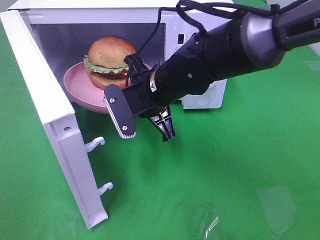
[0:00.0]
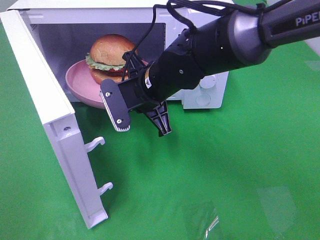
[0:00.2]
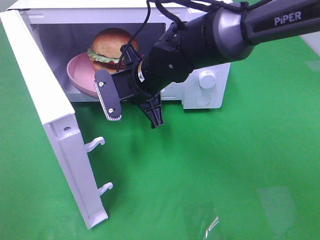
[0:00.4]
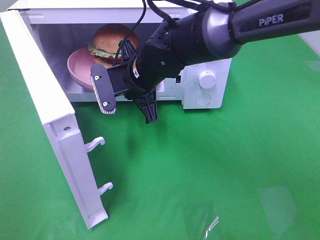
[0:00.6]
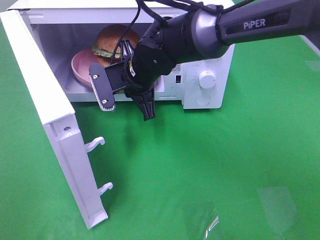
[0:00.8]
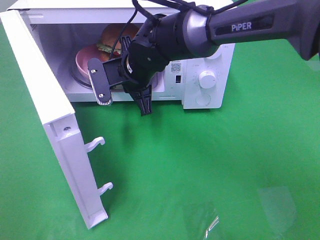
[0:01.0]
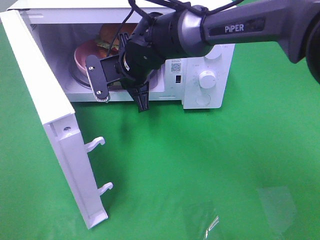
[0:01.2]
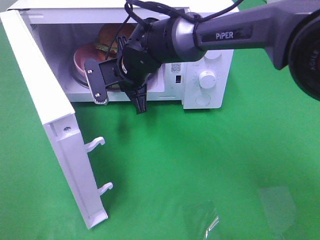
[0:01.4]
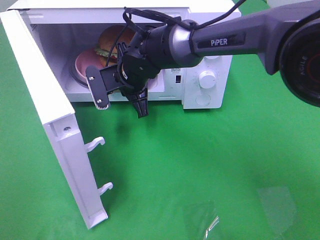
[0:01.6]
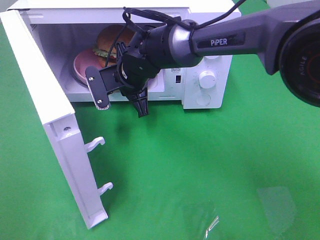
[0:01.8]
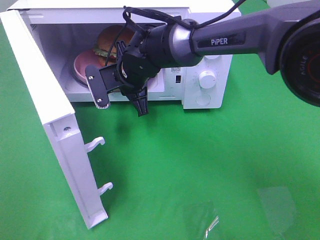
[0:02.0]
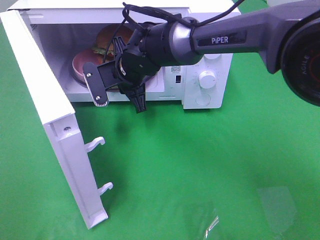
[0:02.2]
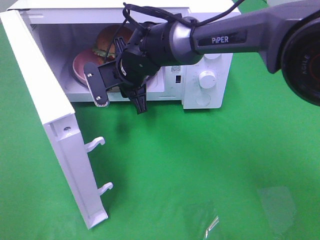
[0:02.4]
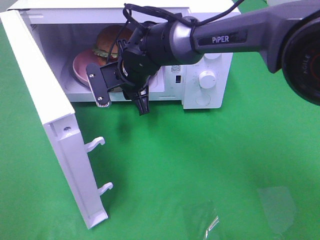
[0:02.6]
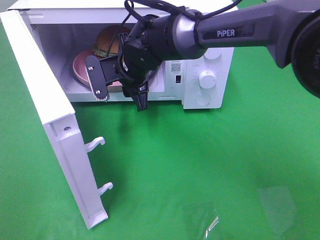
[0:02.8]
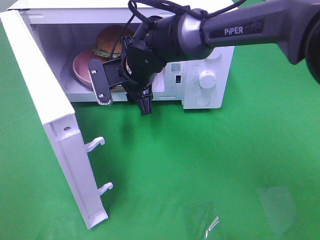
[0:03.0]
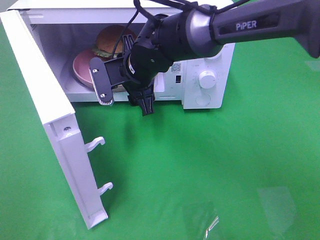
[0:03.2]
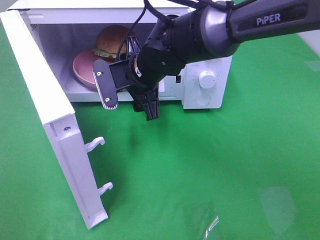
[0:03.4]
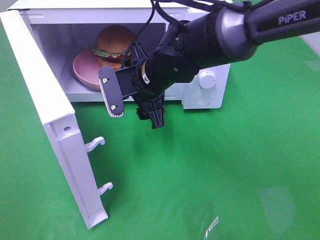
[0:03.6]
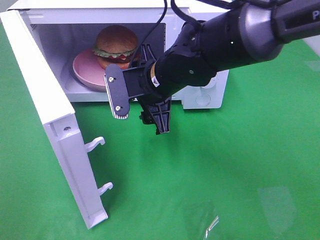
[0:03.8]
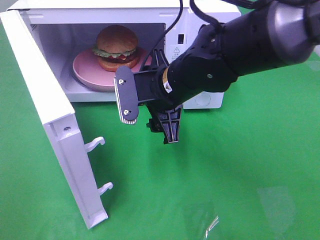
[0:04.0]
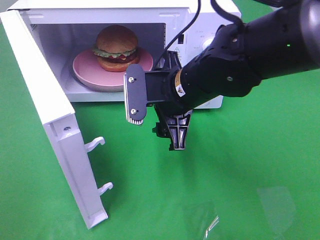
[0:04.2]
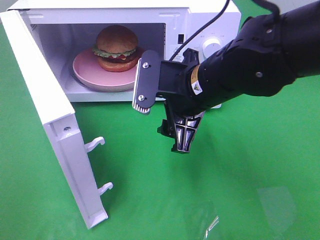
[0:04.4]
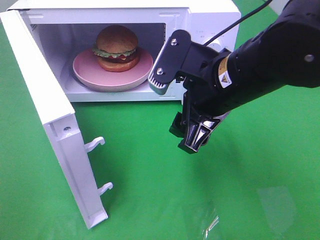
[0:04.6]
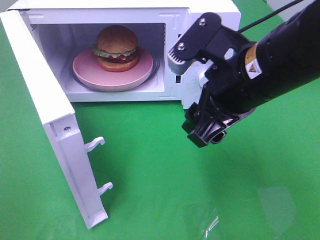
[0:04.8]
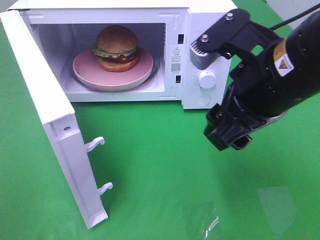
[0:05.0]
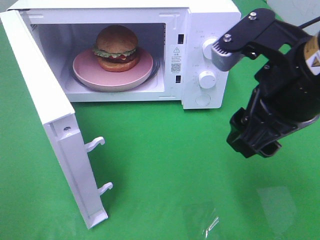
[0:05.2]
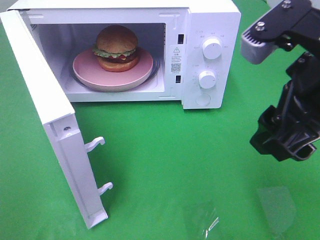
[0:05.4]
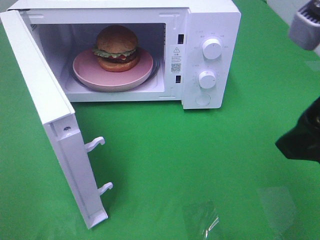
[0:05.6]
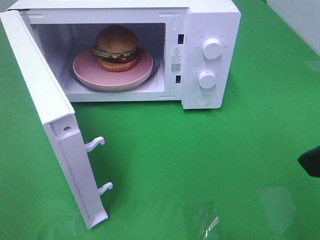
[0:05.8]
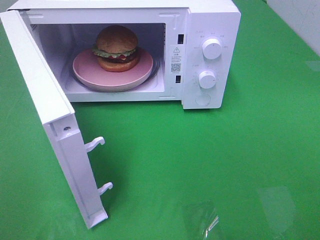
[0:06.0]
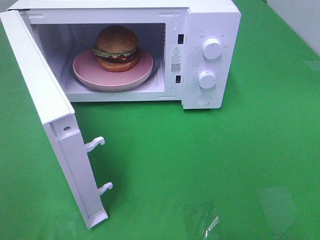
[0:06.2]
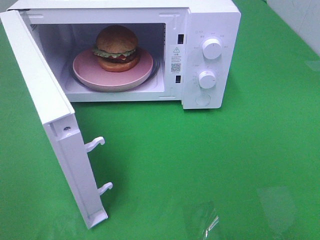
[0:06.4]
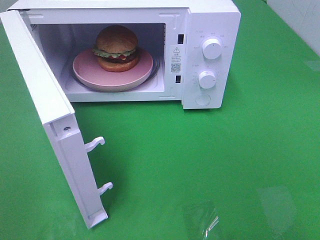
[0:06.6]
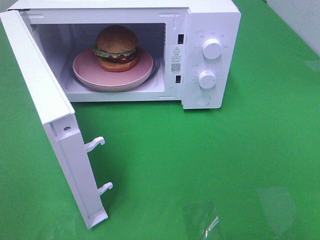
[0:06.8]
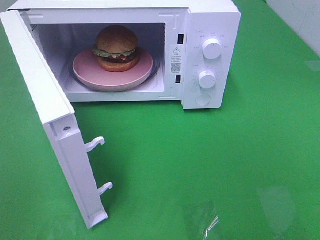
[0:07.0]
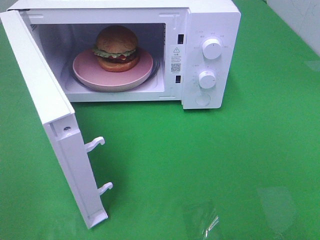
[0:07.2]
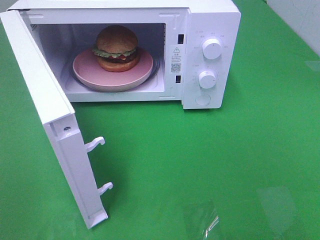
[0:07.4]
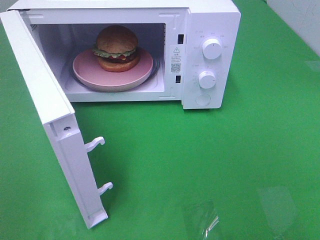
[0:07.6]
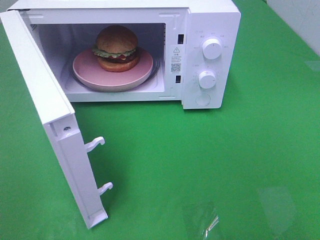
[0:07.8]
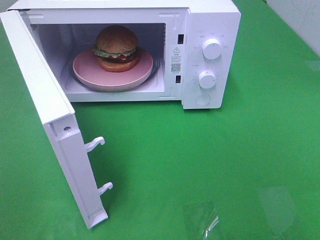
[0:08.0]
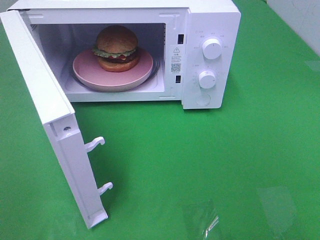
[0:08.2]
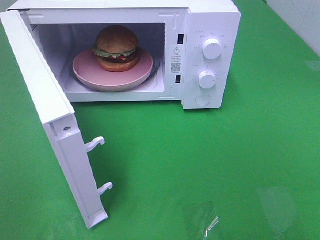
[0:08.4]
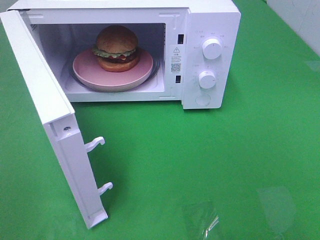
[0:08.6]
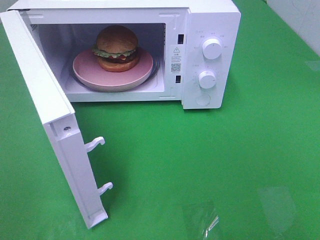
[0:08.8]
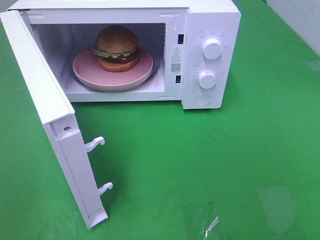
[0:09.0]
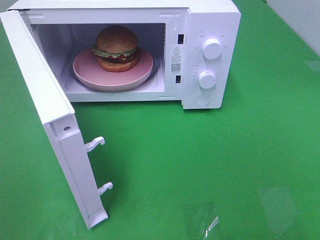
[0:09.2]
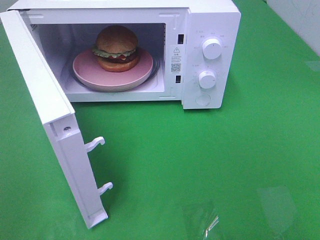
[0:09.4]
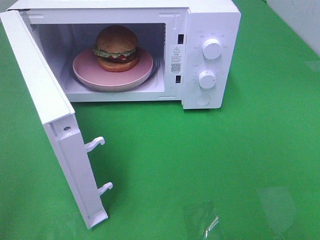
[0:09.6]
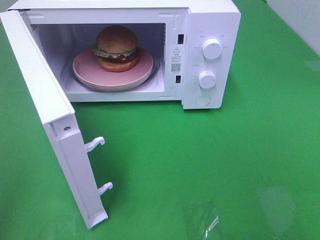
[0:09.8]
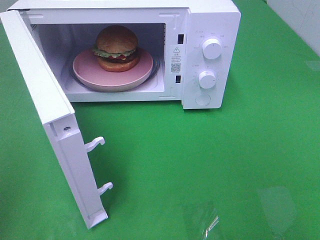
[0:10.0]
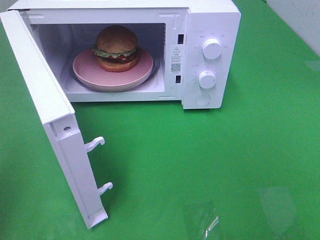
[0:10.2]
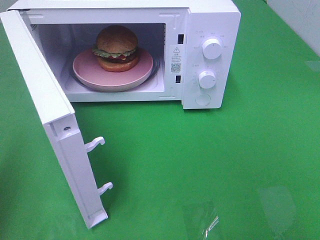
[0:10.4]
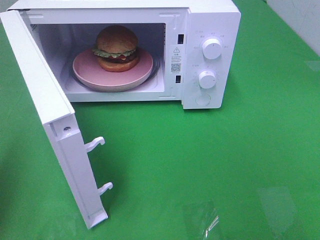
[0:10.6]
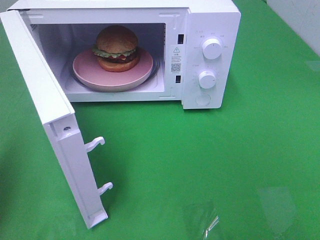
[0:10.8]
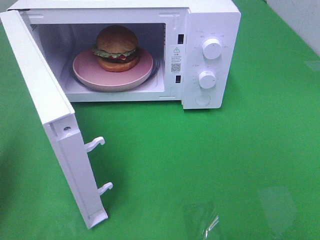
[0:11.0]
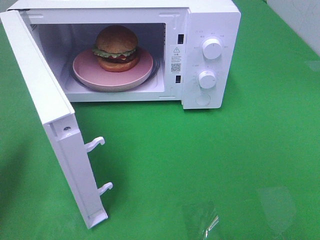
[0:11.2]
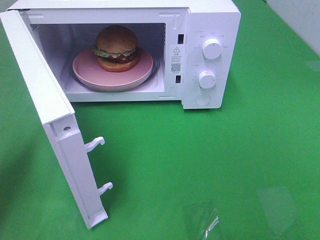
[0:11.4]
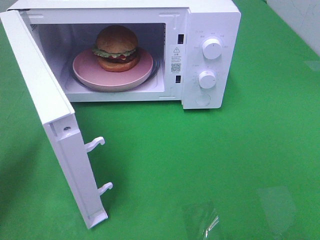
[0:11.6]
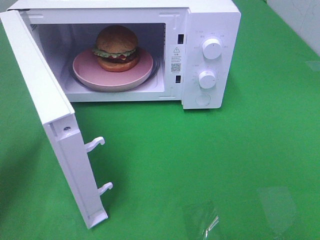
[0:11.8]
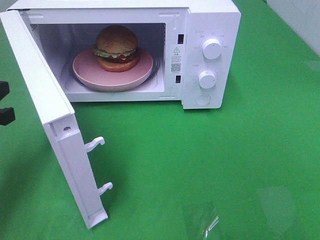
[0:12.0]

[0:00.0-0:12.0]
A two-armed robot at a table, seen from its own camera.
Task of the whole recording: Heat the burger.
Step, 0:00.0 to 0:02.2: Right hand: place the plate in the microwave.
0:00.0 to 0:01.6: The right gripper heads forward, covering roughly 10 cm.
0:01.6 to 0:03.0: The right gripper opens its fingers.
0:03.0 to 0:04.4: The right gripper moves backward, to the right and upward, roughly 15 cm.
0:04.4 to 0:06.0: The right gripper heads to the right, backward and upward, covering approximately 25 cm.
0:07.6 to 0:09.0: The two grippers keep their place.
0:10.4 to 0:12.0: The left gripper is displaced downward and forward by some 15 cm.

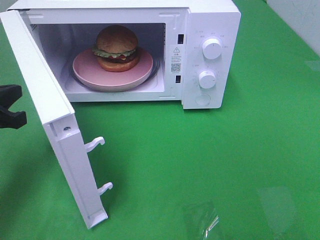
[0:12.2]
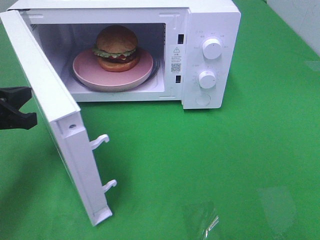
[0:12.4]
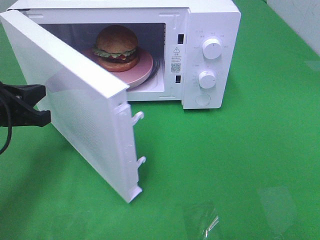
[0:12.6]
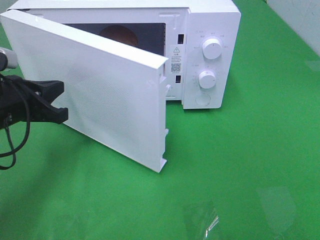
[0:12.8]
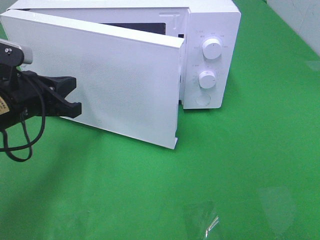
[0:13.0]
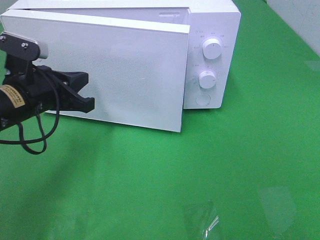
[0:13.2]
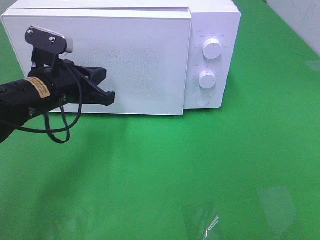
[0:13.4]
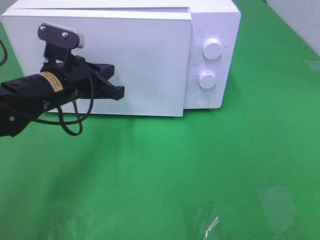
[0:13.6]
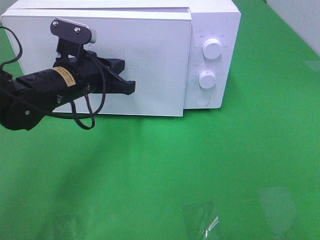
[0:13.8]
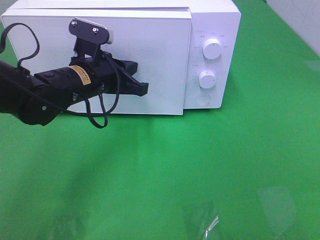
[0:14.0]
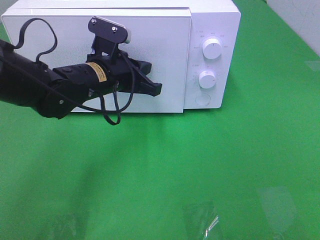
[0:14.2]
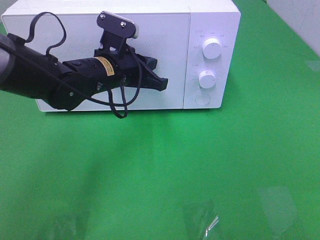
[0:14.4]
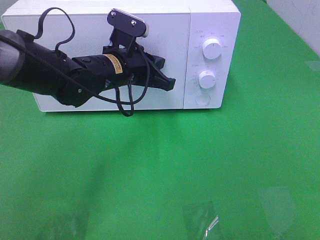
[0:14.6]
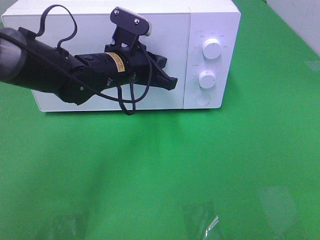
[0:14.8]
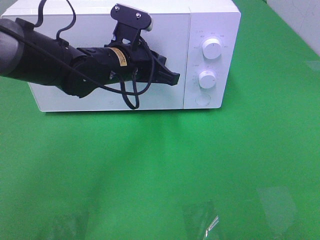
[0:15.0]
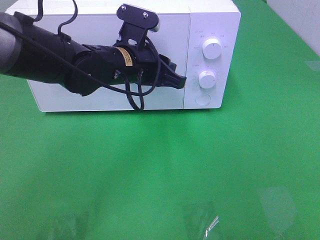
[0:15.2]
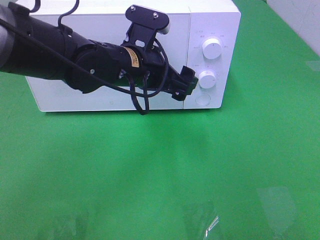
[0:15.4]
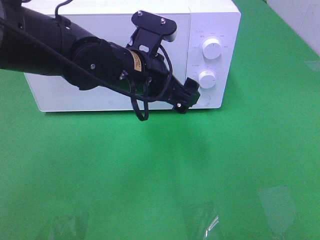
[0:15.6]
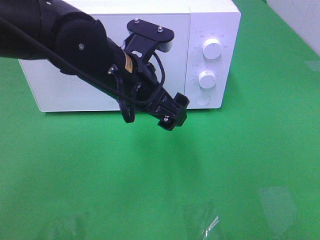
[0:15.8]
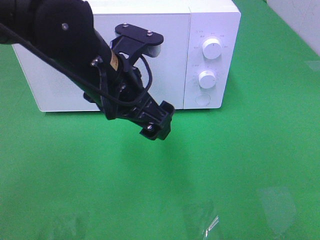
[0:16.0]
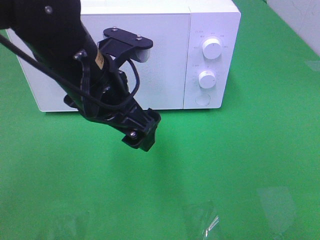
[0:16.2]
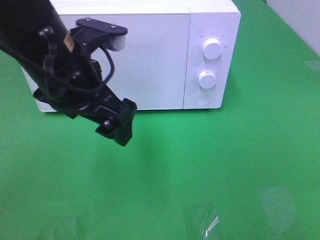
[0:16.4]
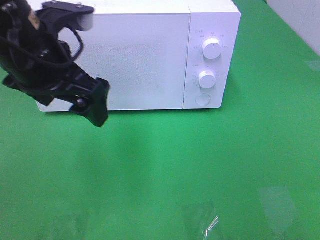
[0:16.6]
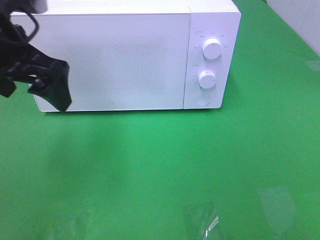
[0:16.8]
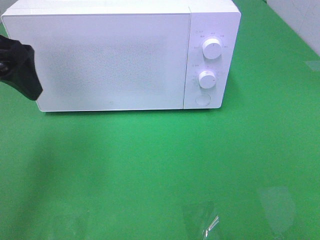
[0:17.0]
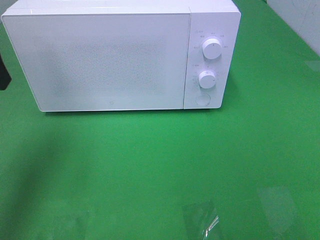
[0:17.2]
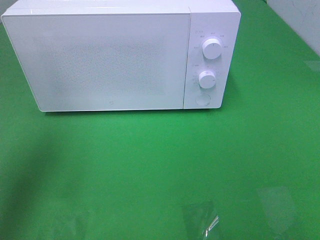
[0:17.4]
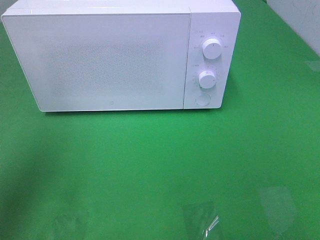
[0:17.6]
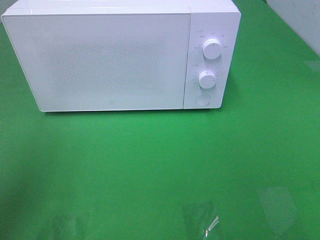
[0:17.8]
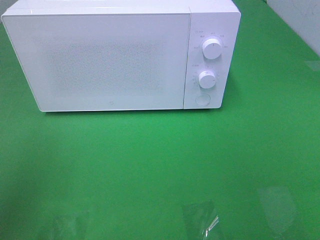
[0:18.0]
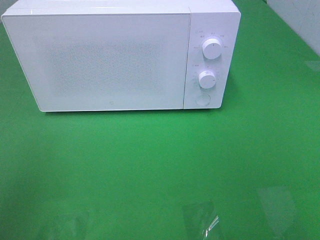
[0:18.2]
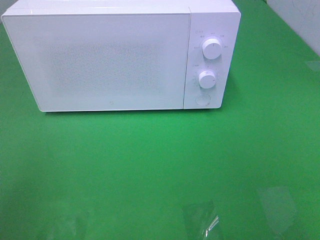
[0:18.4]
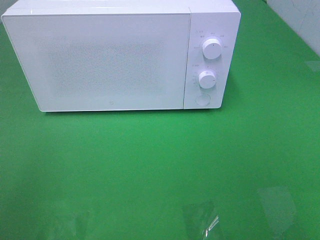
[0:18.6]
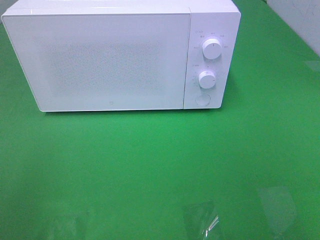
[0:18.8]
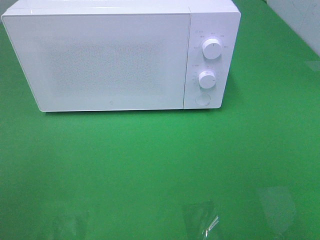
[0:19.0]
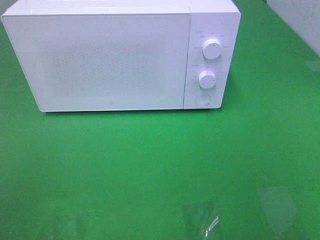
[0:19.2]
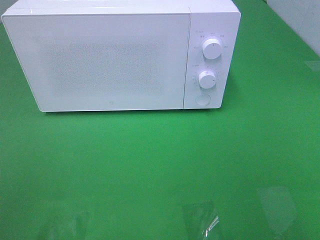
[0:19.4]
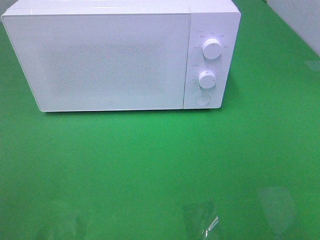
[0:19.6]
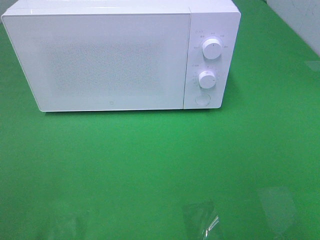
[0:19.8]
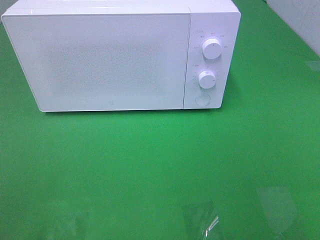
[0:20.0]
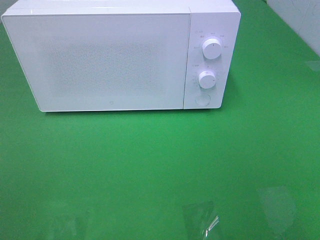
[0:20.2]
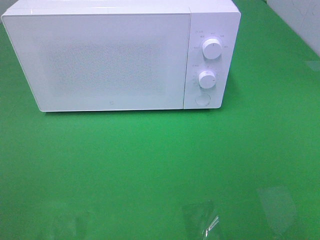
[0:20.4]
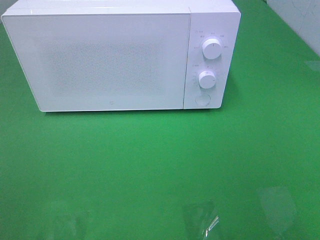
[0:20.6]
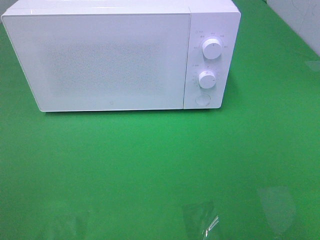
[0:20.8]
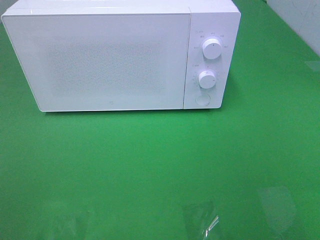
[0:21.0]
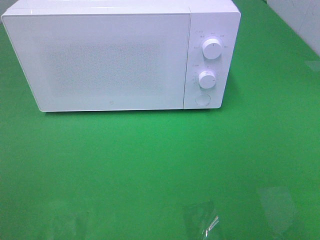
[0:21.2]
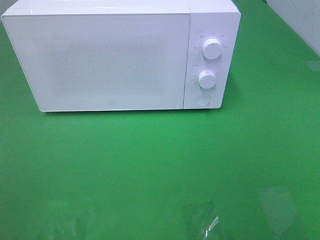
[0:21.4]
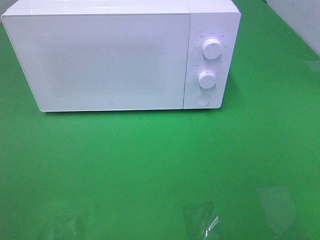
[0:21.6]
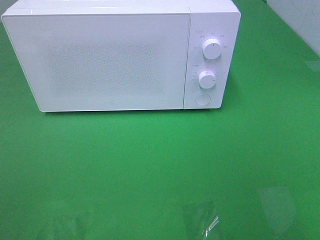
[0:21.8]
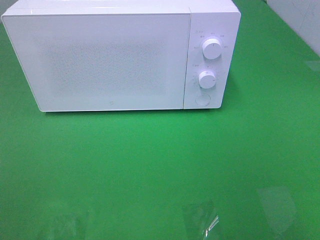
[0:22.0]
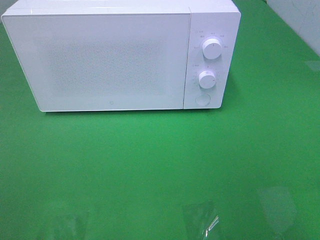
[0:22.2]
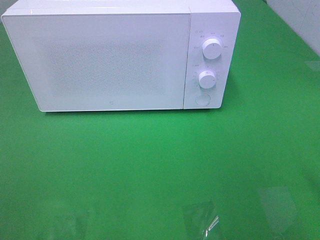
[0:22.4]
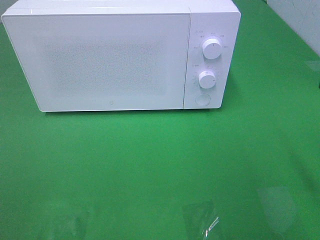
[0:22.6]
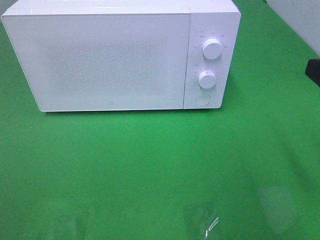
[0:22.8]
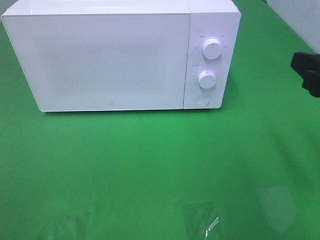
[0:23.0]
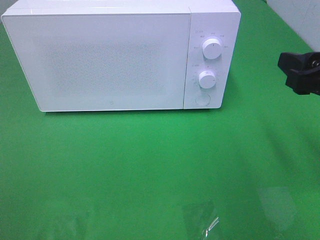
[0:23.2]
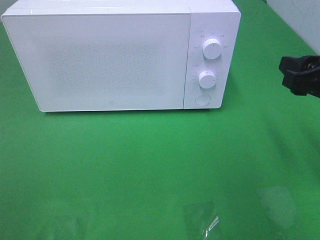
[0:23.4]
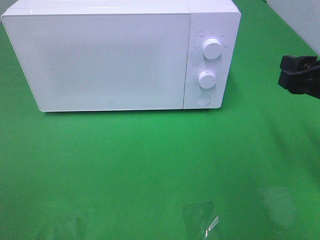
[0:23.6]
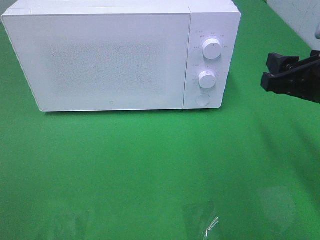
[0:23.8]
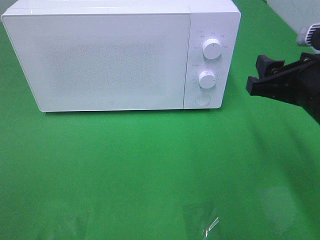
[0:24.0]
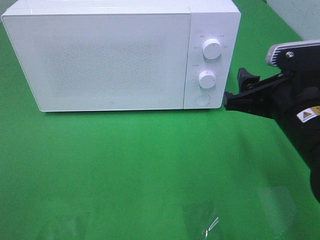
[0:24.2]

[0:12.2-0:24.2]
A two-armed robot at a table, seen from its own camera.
Task of the whole recording: Heat the burger.
Step, 0:12.2 to 0:15.0: Left hand: close the microwave door.
0:12.2 to 0:13.8: The left gripper is displaced to the right and forward by about 20 cm.
0:13.8 to 0:15.2: The left gripper travels to the right by about 10 cm, and opens.
0:15.2 to 0:16.6: The left gripper moves to the left, upward and backward, some 15 cm, and opens up.
0:16.6 to 0:18.2: The left gripper moves backward and to the left, some 20 cm.
0:22.6 to 0:24.2: The right gripper travels to the left, downward and forward by some 15 cm.
